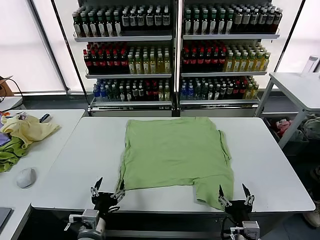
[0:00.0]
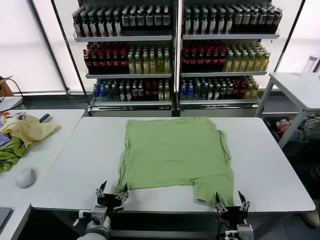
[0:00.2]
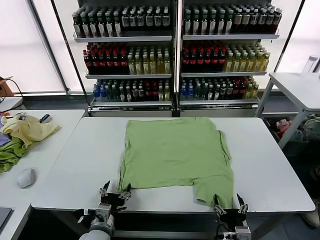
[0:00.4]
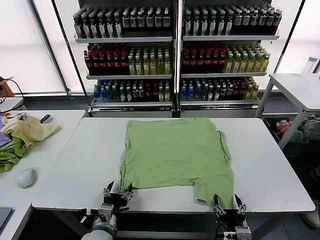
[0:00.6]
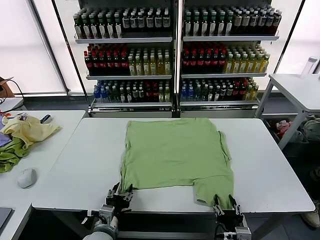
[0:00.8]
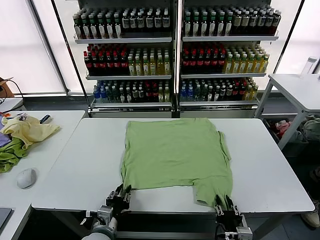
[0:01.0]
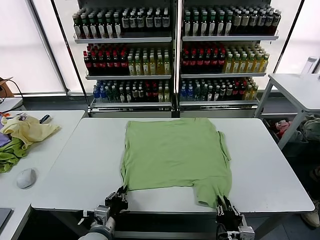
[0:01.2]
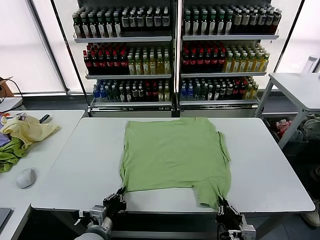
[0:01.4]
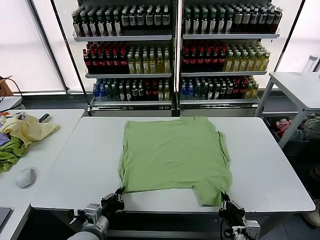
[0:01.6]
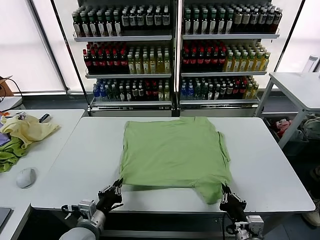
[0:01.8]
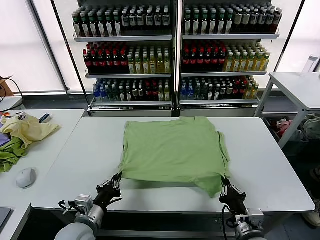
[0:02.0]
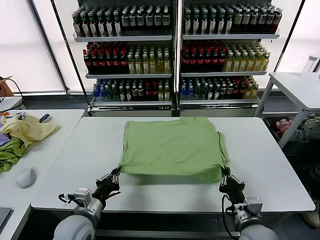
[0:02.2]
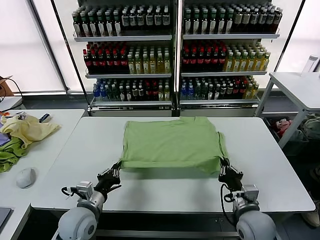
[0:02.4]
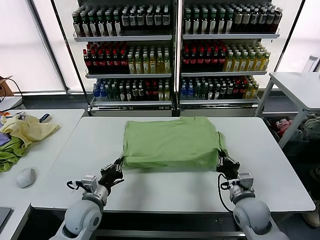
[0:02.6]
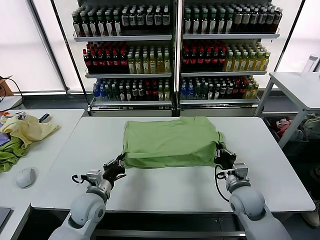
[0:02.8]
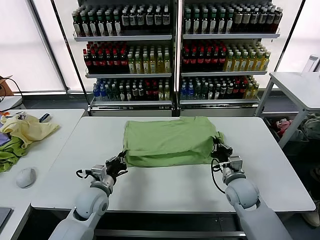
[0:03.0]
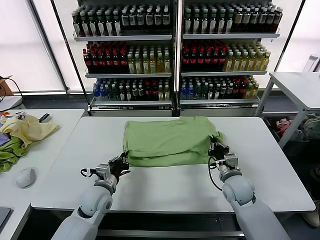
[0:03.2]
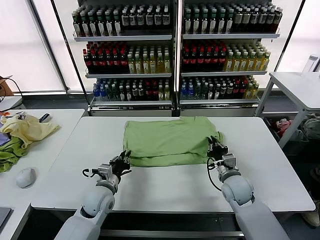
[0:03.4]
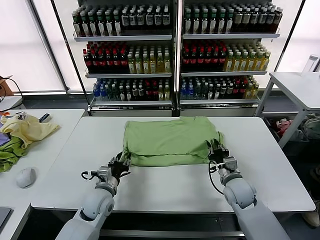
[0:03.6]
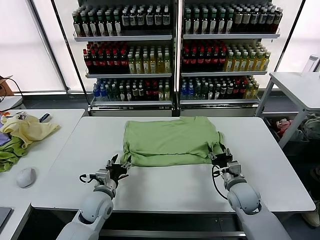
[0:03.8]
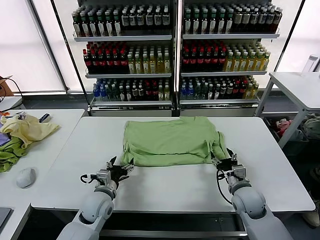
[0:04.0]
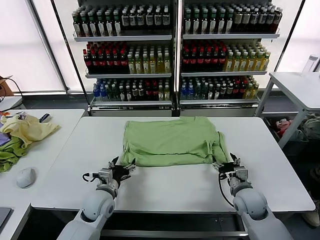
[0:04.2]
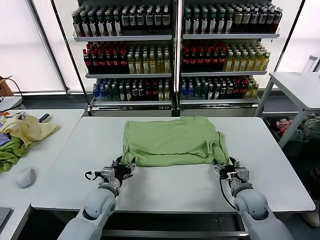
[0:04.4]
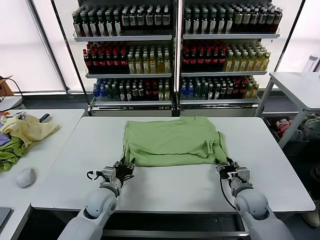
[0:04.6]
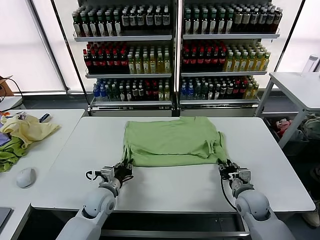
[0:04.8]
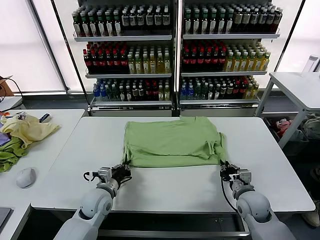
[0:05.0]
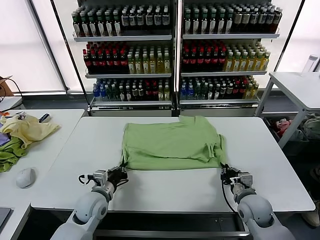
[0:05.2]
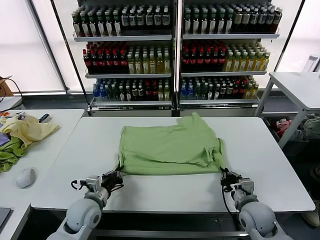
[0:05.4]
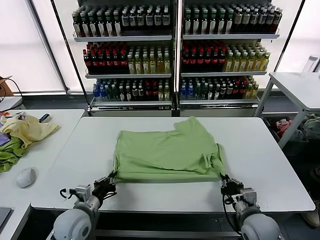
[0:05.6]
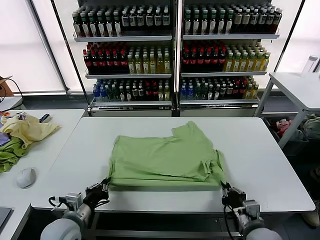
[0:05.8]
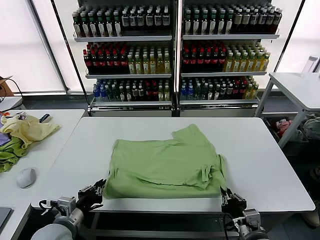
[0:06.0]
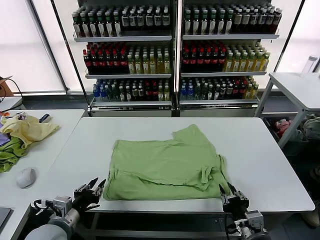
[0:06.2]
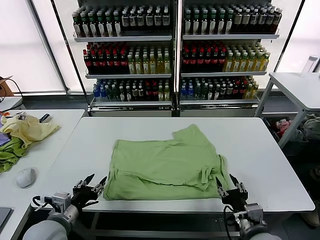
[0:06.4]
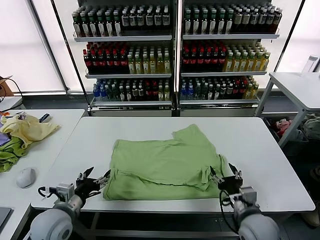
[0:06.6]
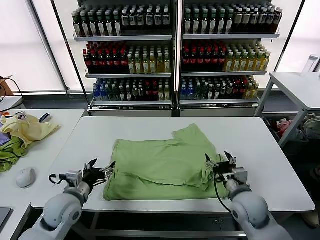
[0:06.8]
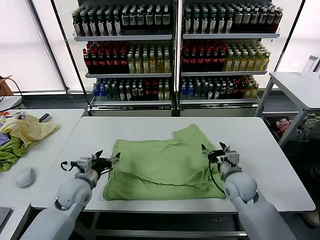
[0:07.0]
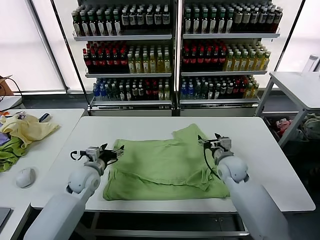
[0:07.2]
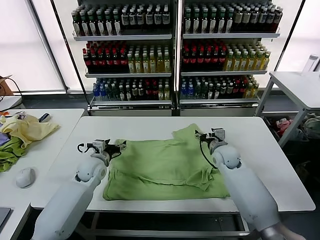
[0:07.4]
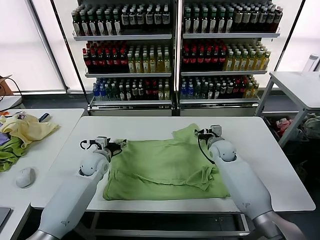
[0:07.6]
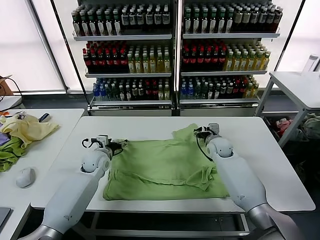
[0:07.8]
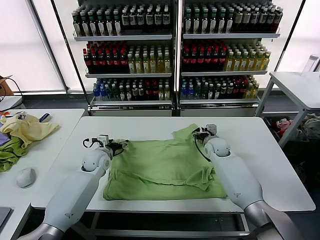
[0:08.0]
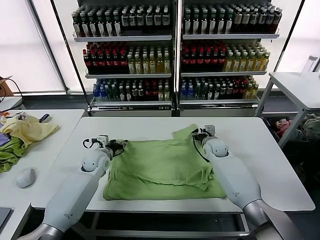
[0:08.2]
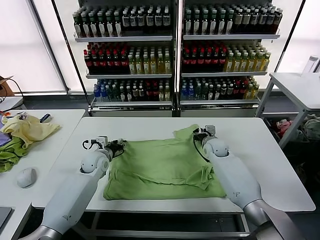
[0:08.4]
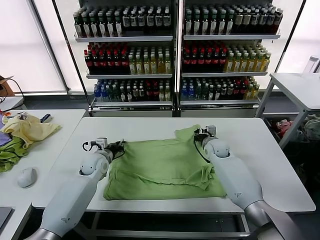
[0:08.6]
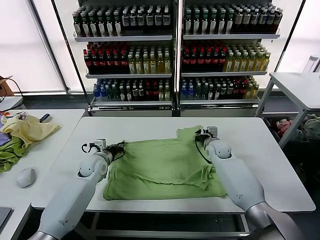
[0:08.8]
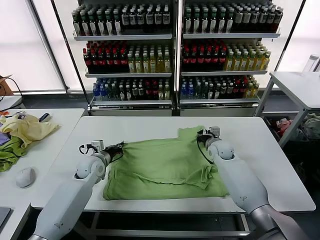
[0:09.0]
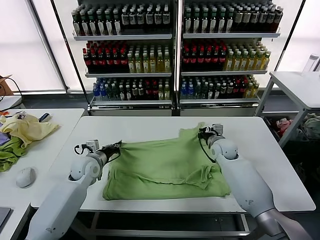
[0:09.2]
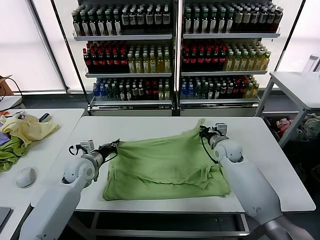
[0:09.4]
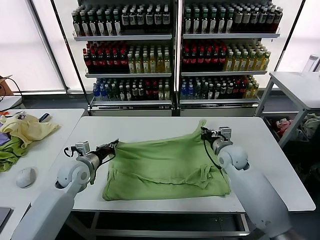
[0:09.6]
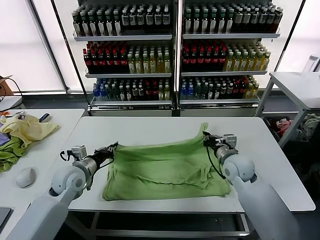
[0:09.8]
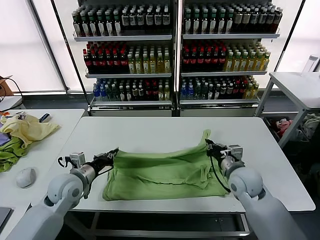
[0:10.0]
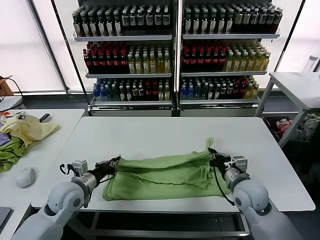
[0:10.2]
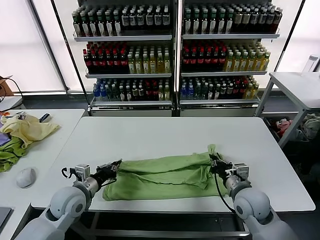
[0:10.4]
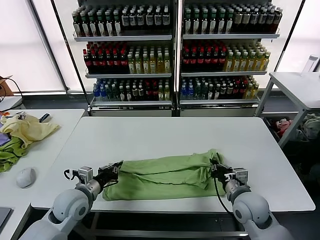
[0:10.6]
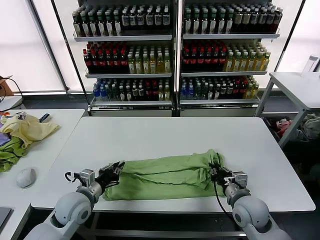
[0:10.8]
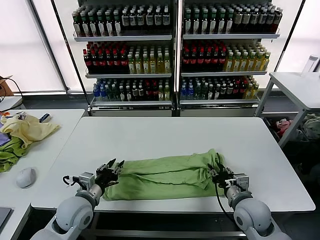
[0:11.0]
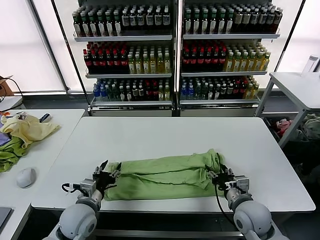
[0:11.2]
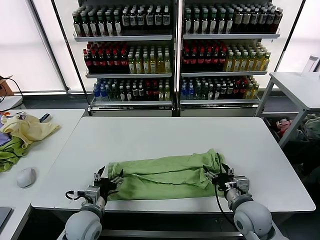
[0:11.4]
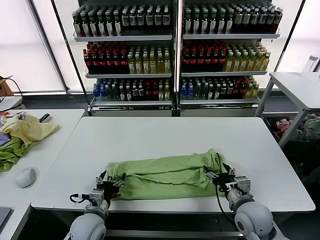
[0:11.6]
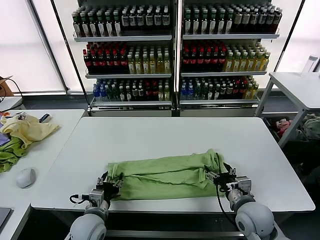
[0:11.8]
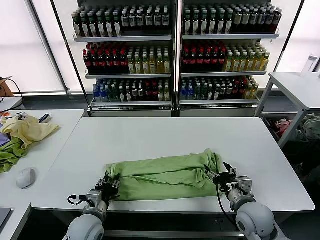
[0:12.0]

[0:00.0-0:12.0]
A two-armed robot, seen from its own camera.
Task of the whole recording: fold and organize the clothes.
Step, 0:00.0 to 0:01.4: use both grippers simultaneously to clamp the lower edge of the clothing fabric.
Step, 0:01.6 to 0:03.6: use both grippers to drag the lower edge of the fabric forward and fold it over the upper edge.
Step, 0:04.0 to 0:06.2: Drag the clothes downward with both gripper.
Step, 0:06.4 to 0:08.8: use both grippers simultaneously to clamp the upper edge of the clothing fabric.
Step, 0:09.0 to 0:11.0: use both grippers to drag the upper edge of the fabric backward and fold it over the lower edge.
0:01.6 to 0:03.0: The left gripper is displaced forward by approximately 15 cm; the right gripper travels forward by approximately 20 cm.
0:03.0 to 0:04.4: The left gripper opens. The right gripper changes place by some 5 cm, and opens its fingers.
0:04.4 to 0:06.0: The right gripper shifts about 15 cm backward, and closes. The left gripper is displaced backward, to the left and upward by about 15 cm.
0:06.0 to 0:07.6: The two grippers go about 30 cm forward. The left gripper opens its fingers; the right gripper opens its fingers.
0:07.6 to 0:09.0: The left gripper closes; the right gripper closes.
0:09.0 to 0:10.4: The right gripper shifts some 25 cm backward, while the left gripper heads backward, covering some 15 cm.
0:10.4 to 0:12.0: The left gripper travels downward, backward and to the right by some 10 cm, and opens its fingers, while the right gripper opens its fingers.

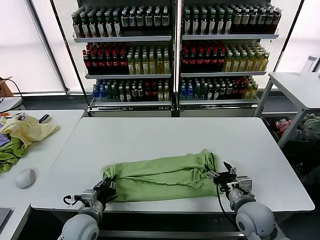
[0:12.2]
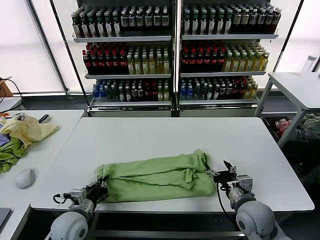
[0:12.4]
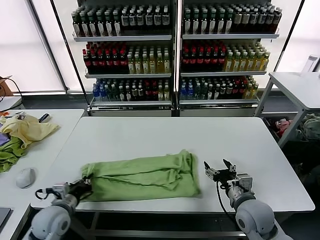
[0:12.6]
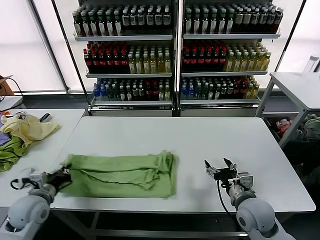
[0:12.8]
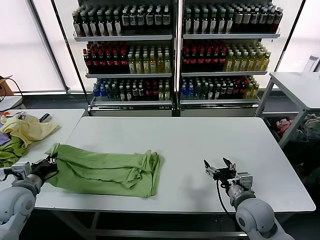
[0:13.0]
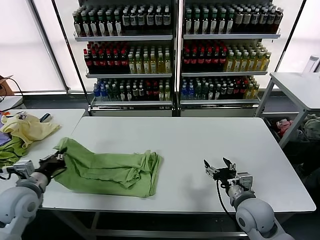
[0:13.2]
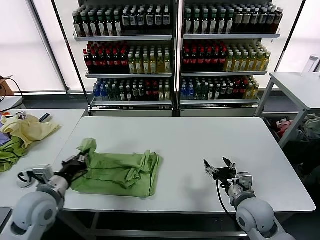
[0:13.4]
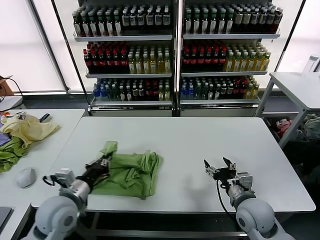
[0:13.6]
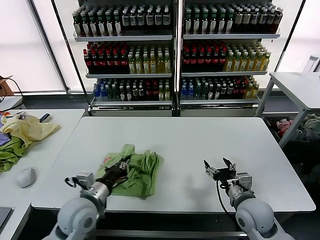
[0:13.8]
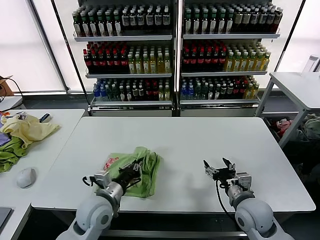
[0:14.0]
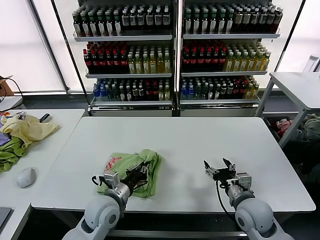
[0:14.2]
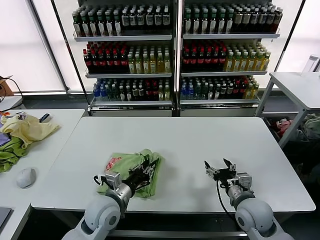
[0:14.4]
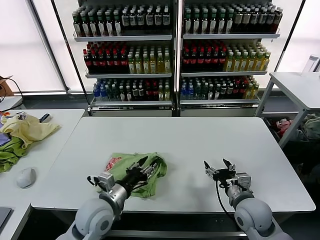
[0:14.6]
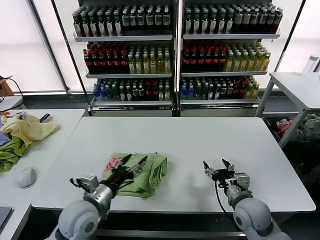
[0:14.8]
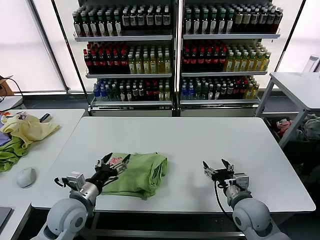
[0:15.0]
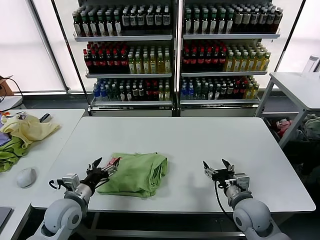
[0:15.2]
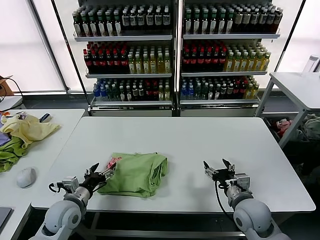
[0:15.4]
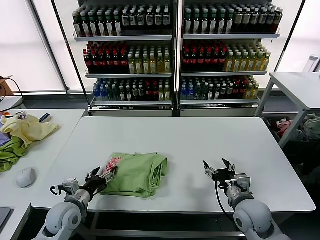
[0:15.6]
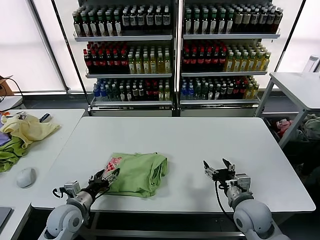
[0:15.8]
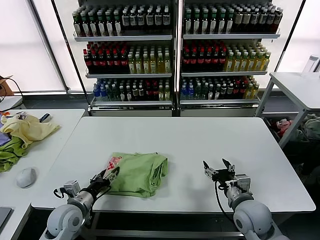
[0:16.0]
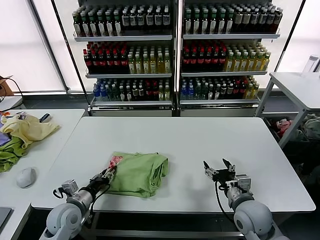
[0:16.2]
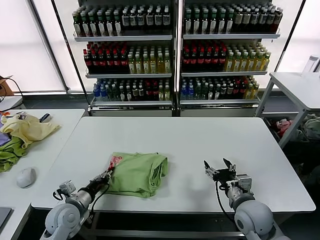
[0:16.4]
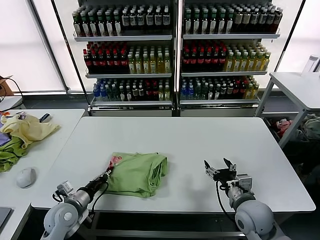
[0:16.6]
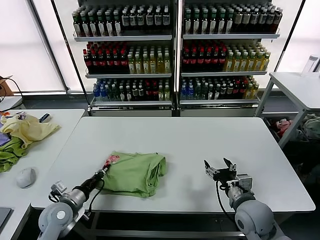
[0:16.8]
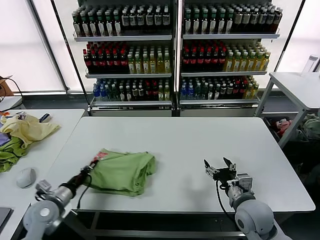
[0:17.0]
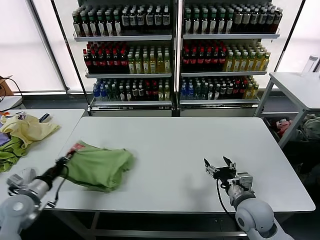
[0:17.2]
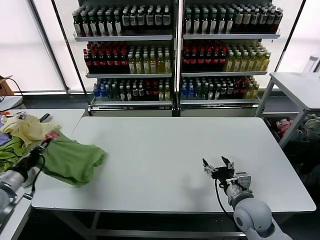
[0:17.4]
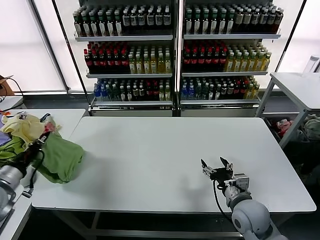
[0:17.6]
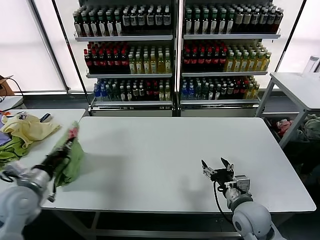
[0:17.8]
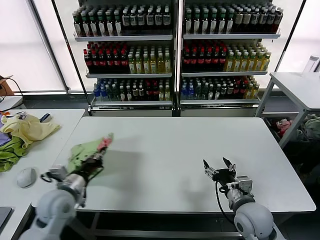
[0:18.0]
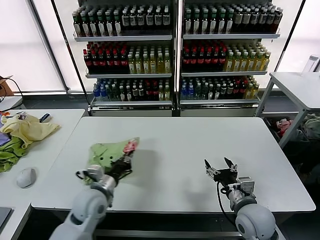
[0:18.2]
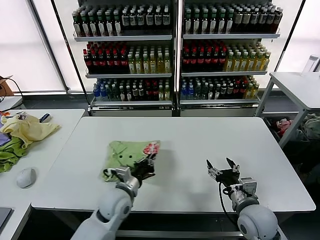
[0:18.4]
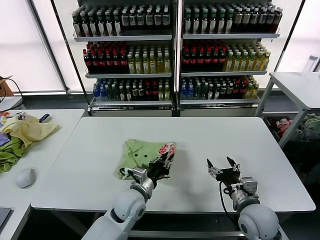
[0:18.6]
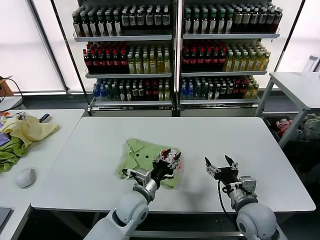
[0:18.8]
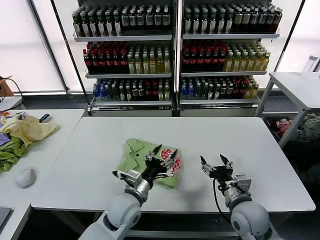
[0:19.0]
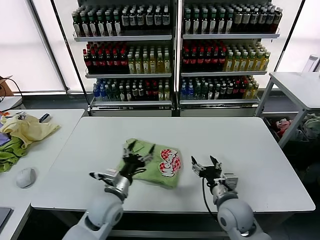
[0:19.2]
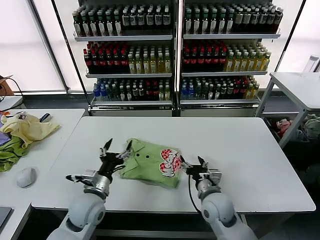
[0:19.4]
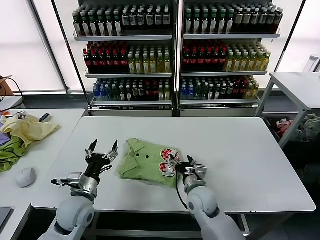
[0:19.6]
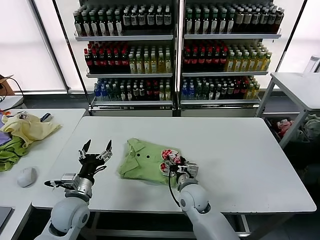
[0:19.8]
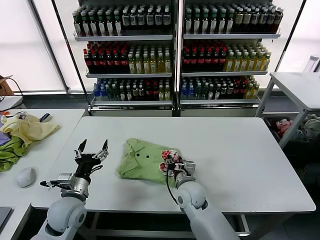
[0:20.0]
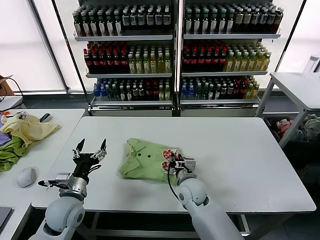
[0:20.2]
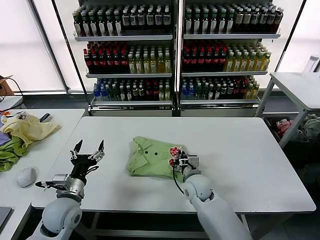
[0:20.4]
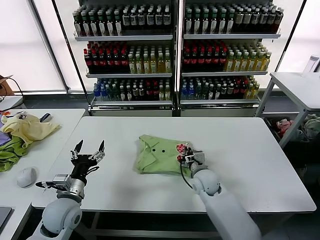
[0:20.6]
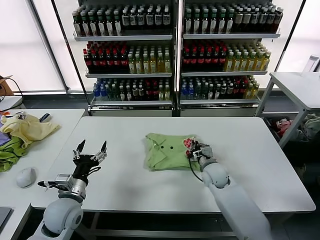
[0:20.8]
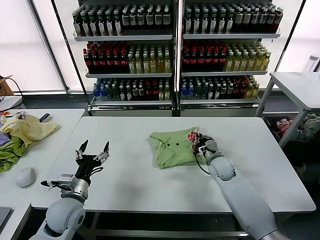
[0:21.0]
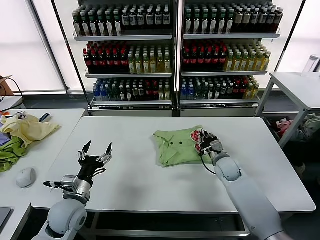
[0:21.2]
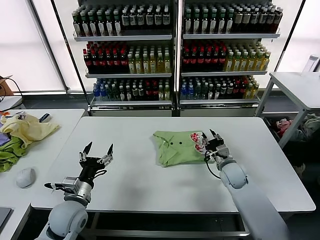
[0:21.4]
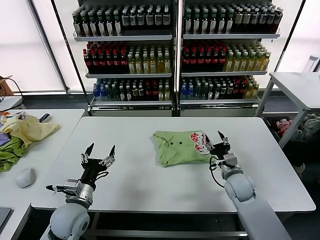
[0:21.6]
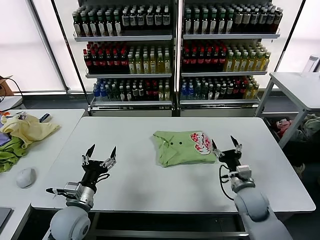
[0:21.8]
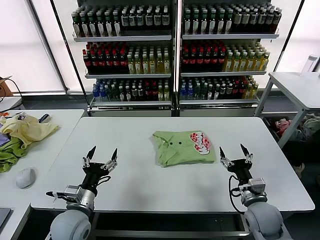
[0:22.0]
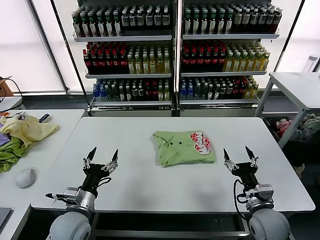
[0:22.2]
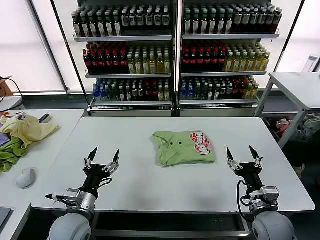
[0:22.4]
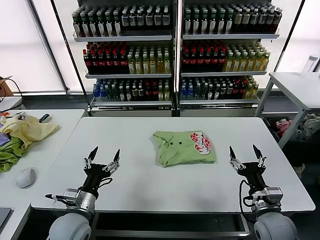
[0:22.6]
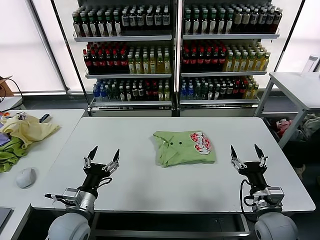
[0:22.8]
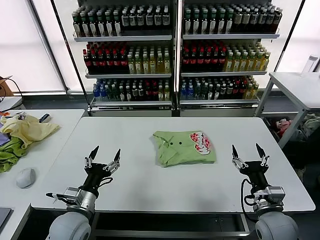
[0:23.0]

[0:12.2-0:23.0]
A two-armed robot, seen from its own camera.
Task of the whole recording: fold and organize the clothes.
Step, 0:12.4 to 0:14.4: use the left gripper to drag the left edge of the fabric to the left and folds it over the right edge.
Step, 0:14.6 to 0:18.6: Flip the folded clothes over with left gripper.
Step, 0:18.8 to 0:21.4: Drag the clothes to the center of the table.
0:12.2 to 0:13.8: The left gripper shifts roughly 10 cm upward, and reaches some 20 cm to the left, then returns.
0:13.8 to 0:15.2: The left gripper goes about 5 cm to the left, and opens up.
0:15.2 to 0:16.8: The left gripper goes roughly 5 cm downward, and closes up.
0:16.8 to 0:18.4: The left gripper moves to the right, approximately 15 cm.
0:18.4 to 0:20.0: The left gripper goes some 10 cm to the left, and opens up, while the right gripper travels to the left and forward by about 20 cm, and closes its fingers.
0:20.0 to 0:21.4: The right gripper goes about 20 cm to the right and forward, and closes, then reopens.
0:21.4 to 0:23.0: The right gripper is displaced backward by some 20 cm, and opens its fingers.
